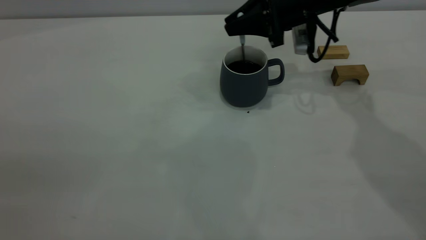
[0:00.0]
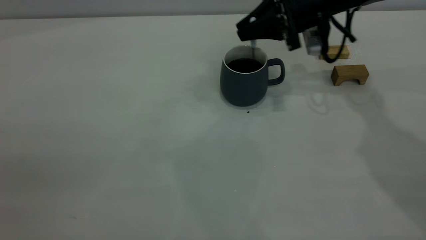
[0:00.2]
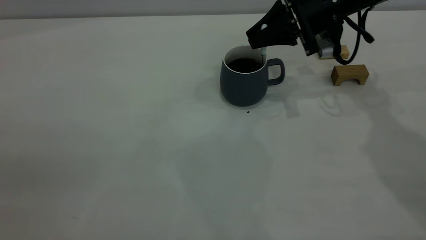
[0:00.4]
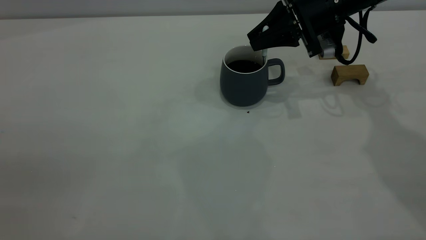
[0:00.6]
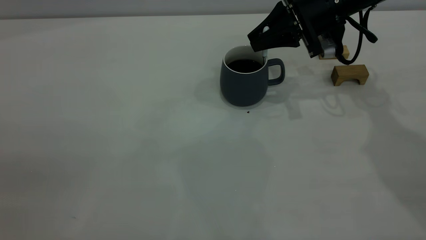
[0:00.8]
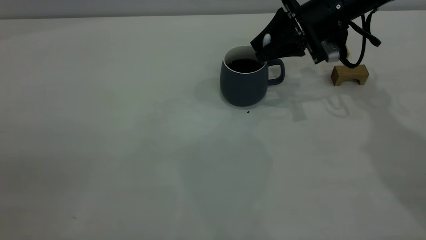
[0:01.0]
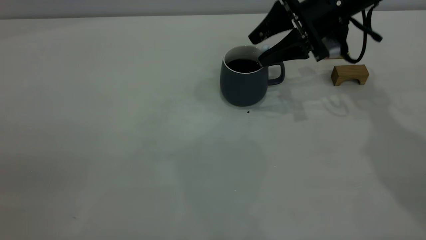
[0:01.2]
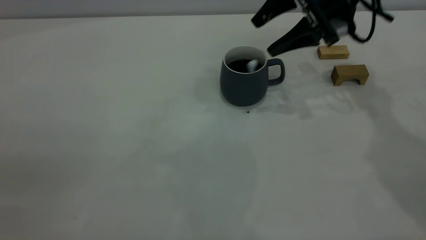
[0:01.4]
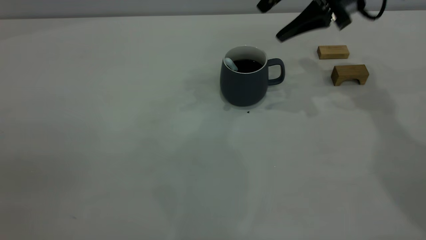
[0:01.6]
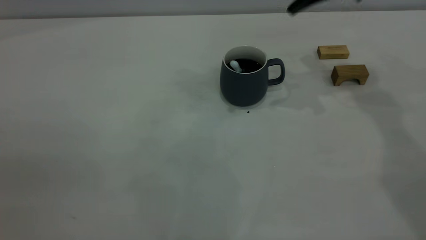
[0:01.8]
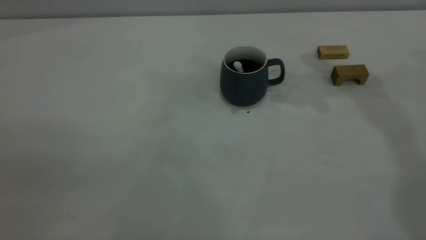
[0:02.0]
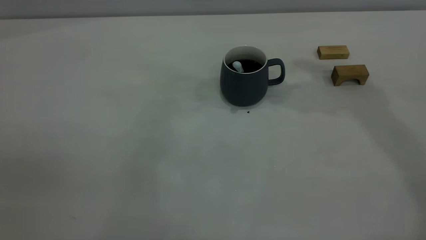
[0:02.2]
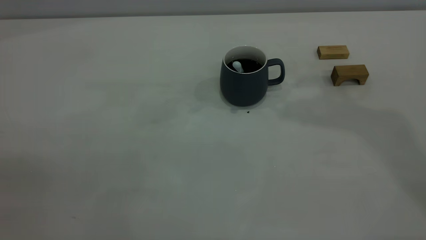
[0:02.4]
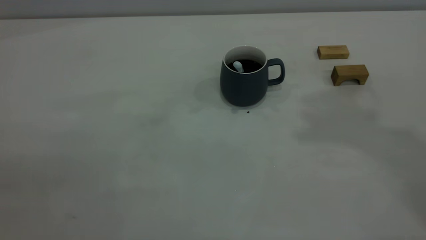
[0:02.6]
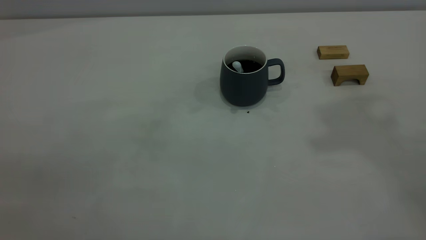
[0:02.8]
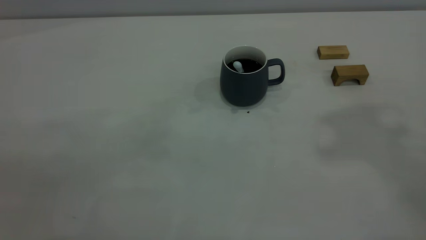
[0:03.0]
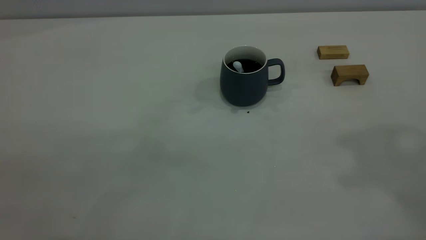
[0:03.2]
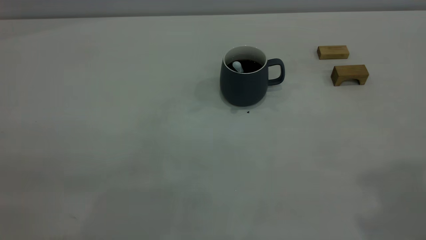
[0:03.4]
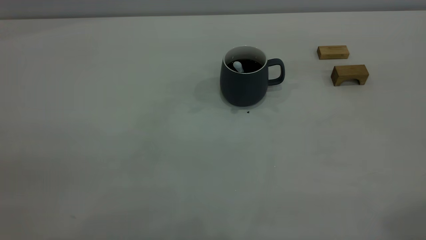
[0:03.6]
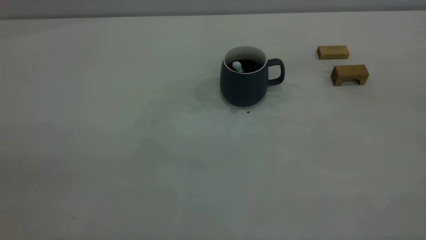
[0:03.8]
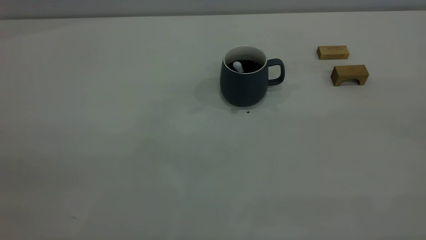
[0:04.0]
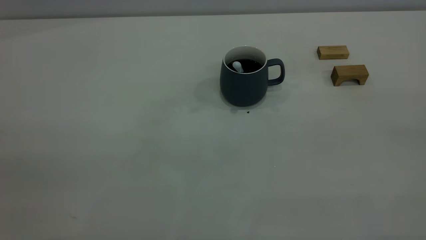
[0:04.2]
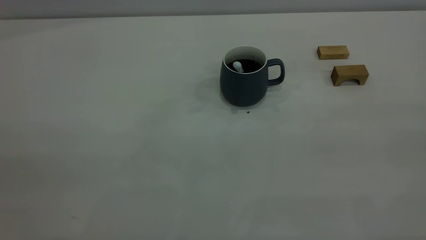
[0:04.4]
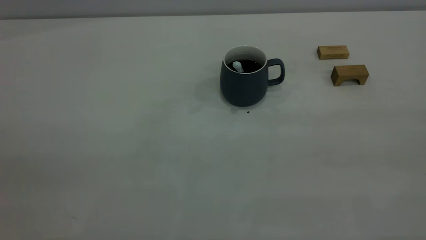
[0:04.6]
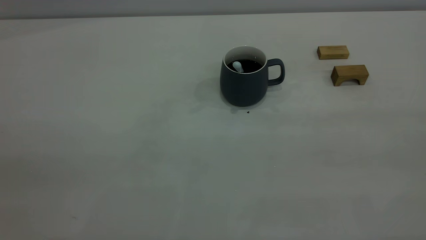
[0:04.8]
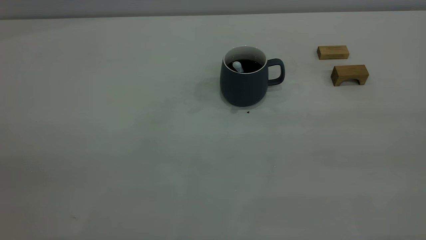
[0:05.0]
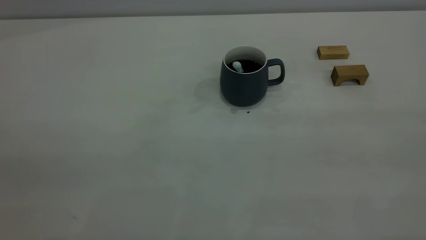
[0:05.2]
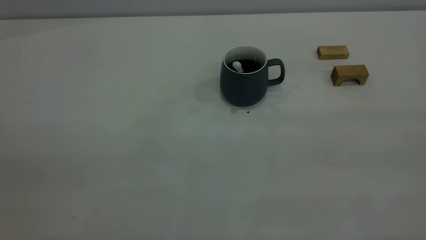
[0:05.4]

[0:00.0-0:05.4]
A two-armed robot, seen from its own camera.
0:00.0 to 0:01.4: The right gripper ends up some 5 cm from where it was, and opens up.
0:01.4 to 0:02.8: The right gripper moves upward and backward, about 40 cm, and closes.
